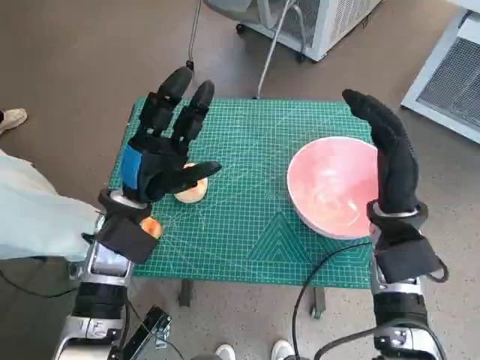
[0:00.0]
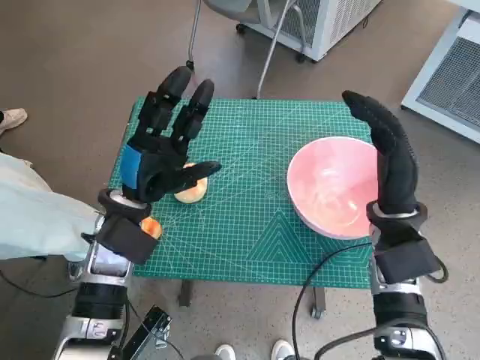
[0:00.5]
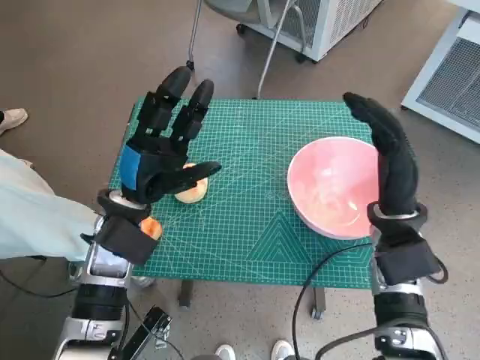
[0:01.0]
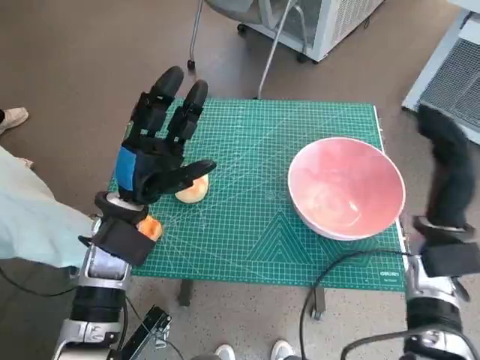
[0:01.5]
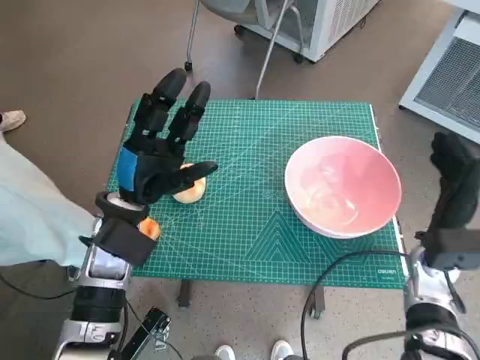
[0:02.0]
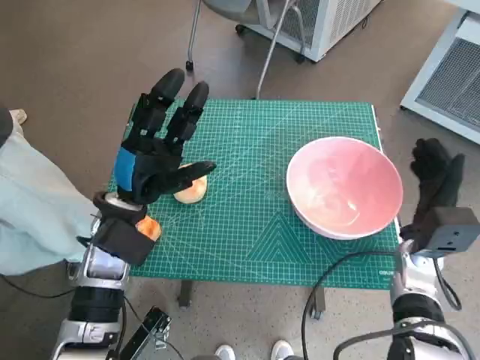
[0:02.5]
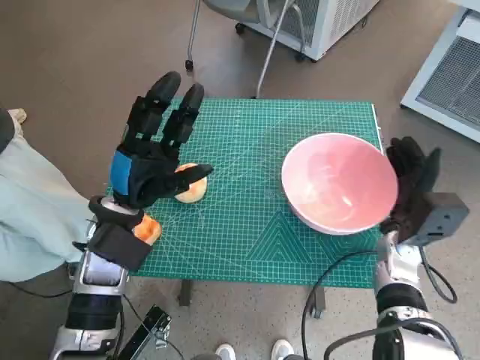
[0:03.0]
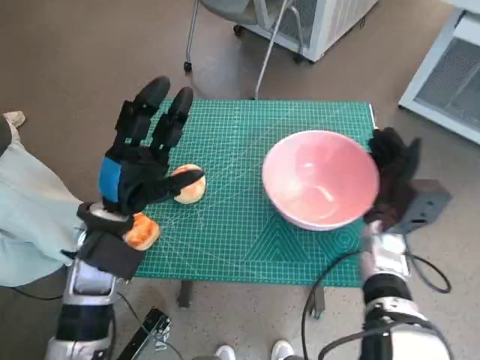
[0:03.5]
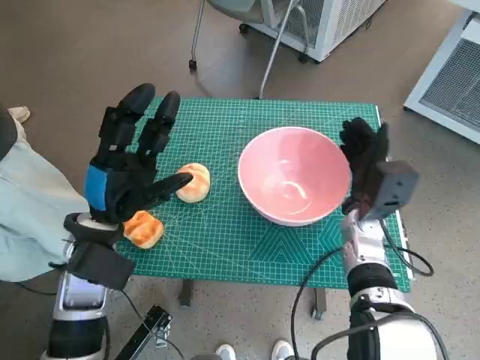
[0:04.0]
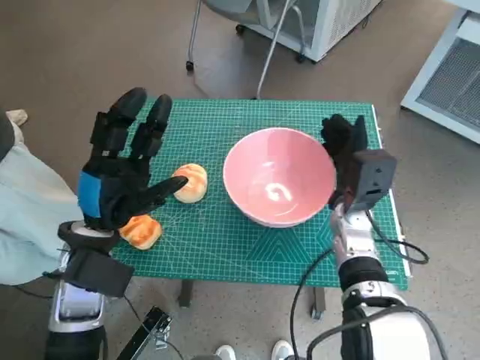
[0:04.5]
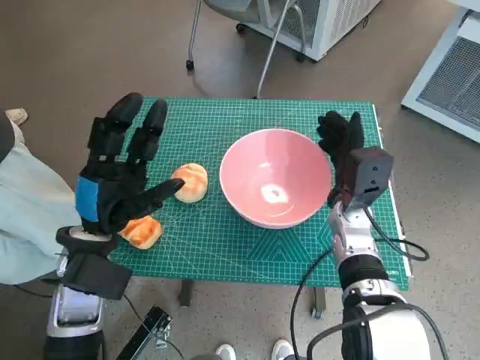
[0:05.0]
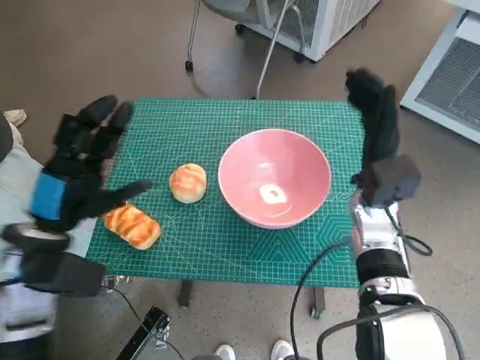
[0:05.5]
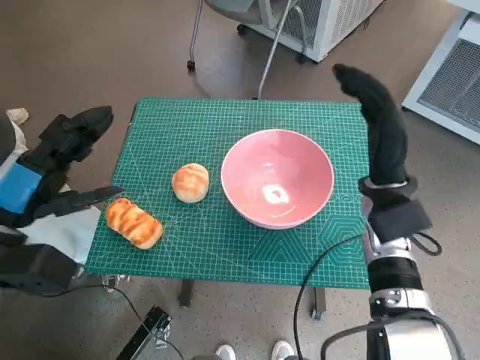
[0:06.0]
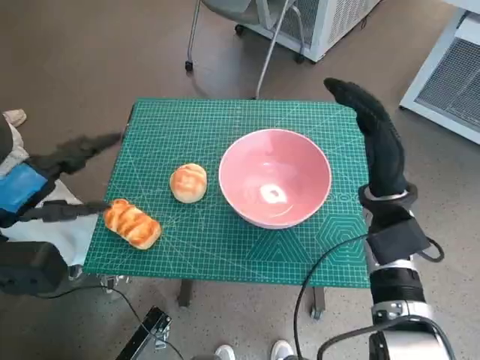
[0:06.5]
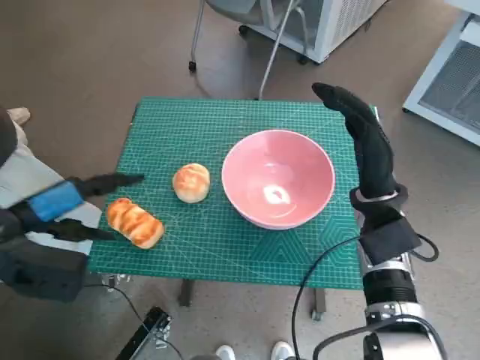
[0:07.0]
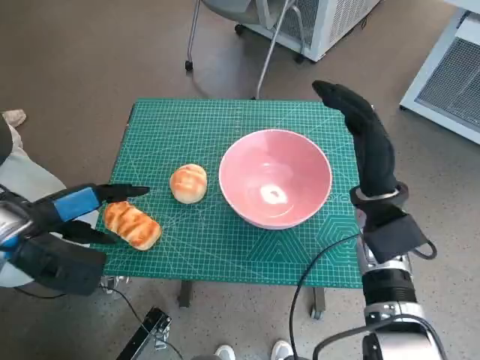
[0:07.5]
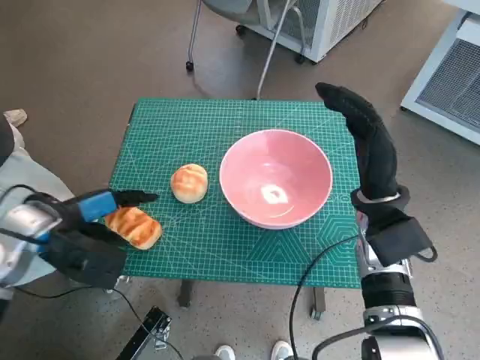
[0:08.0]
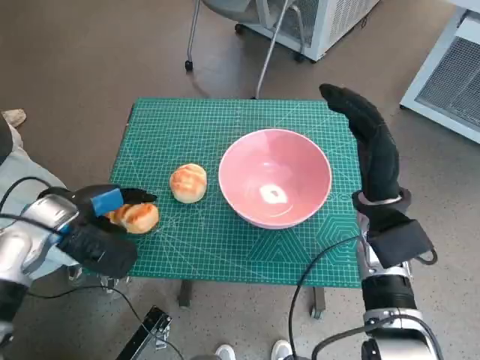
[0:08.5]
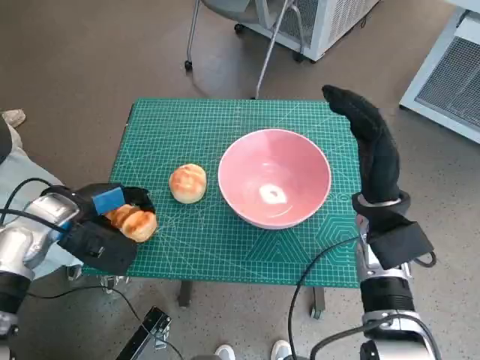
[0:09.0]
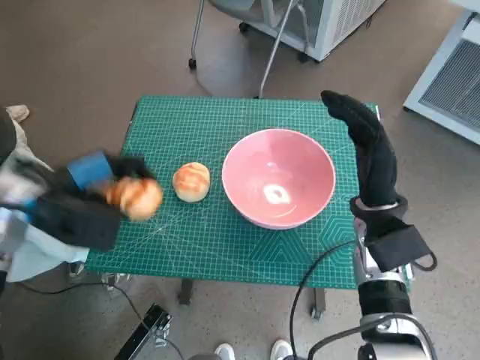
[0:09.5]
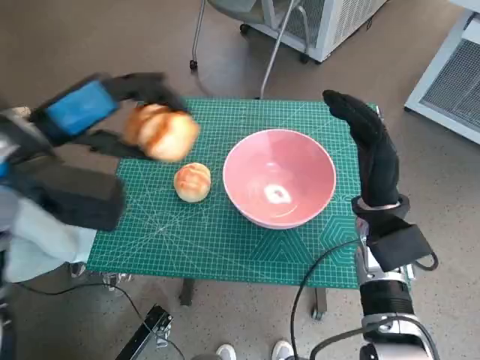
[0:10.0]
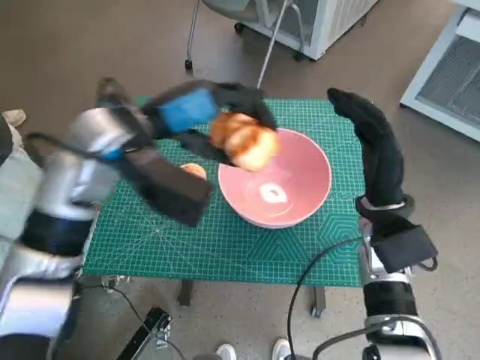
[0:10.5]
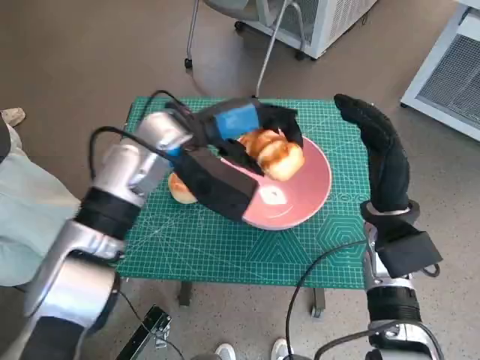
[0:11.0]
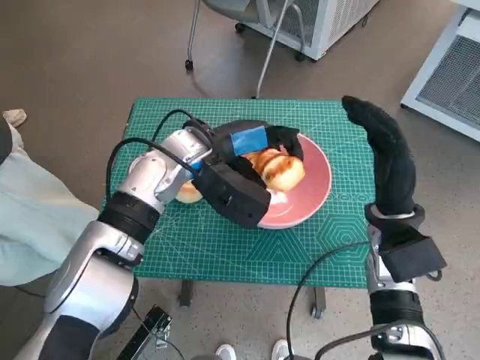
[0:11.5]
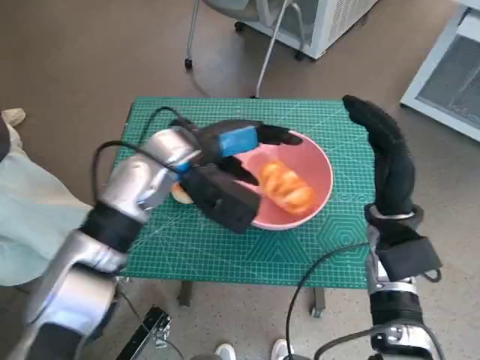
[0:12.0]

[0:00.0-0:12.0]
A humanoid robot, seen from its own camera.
Task of the whole recording: Push the bowl to the center of the table and put the bread into the bowl.
Step, 0:00.0 to 0:05.0: Move the pink bowl to the center of table with right hand.
Step, 0:05.5 to 0:08.5: Grasp the long bread with left hand.
0:02.0 to 0:04.0: The right hand goes about 10 cm to the left.
0:04.0 to 0:06.0: The right hand moves upward, approximately 5 cm; the left hand is displaced to the left by roughly 10 cm.
0:06.0 to 0:08.0: The left hand ends up roughly 5 cm from where it was.
0:08.0 to 0:10.0: The left hand goes approximately 10 cm upward.
0:10.0 to 0:12.0: The left hand shifts approximately 15 cm to the right, downward and forward.

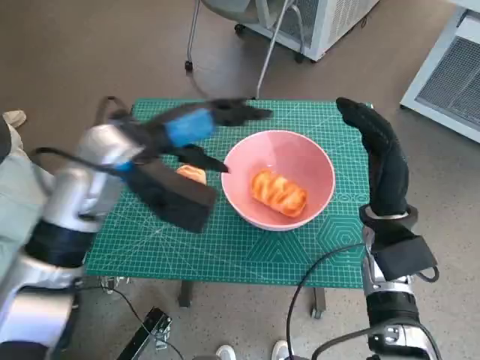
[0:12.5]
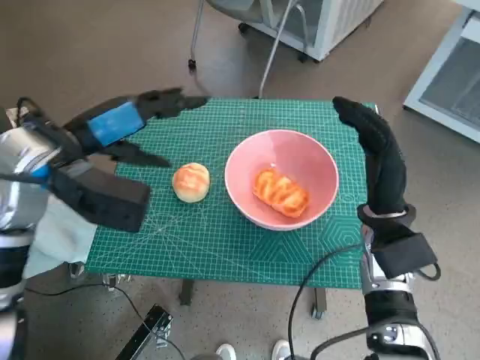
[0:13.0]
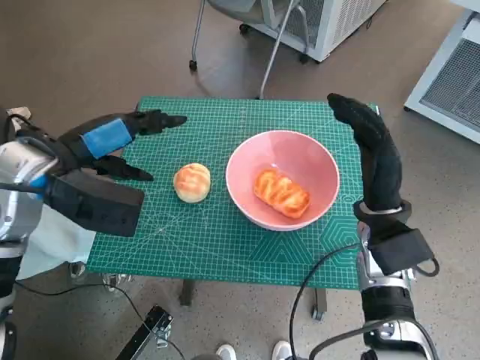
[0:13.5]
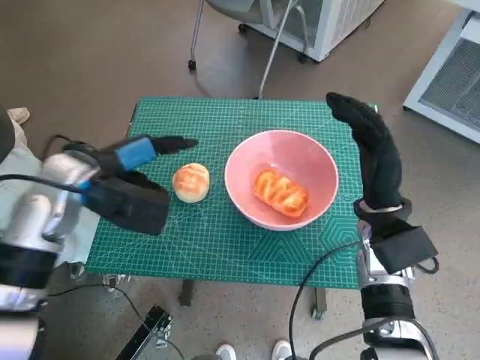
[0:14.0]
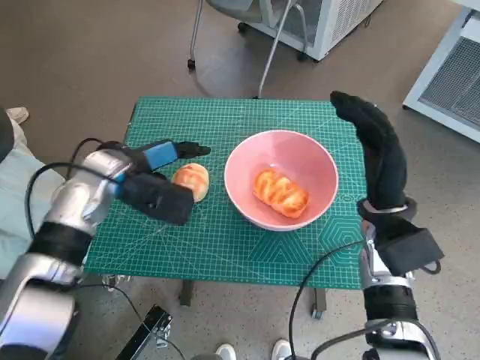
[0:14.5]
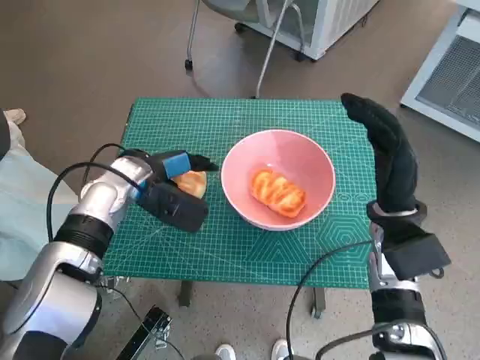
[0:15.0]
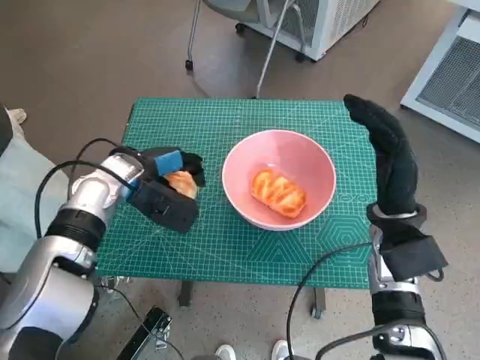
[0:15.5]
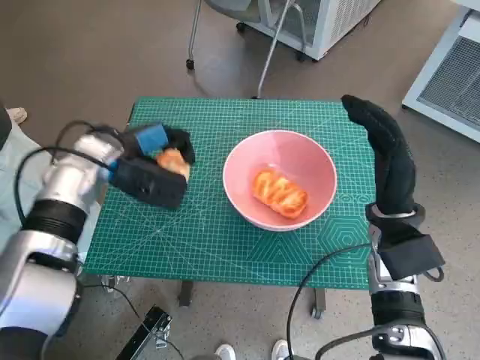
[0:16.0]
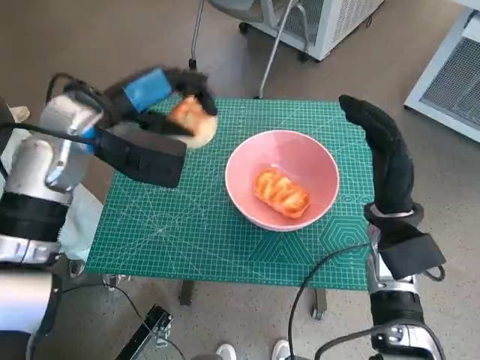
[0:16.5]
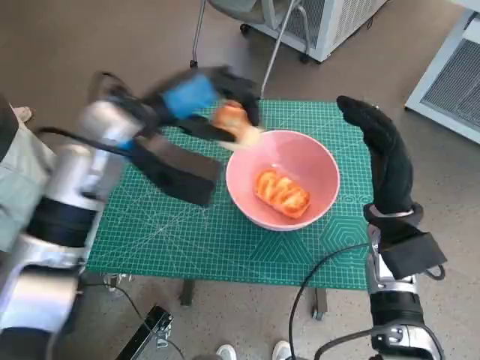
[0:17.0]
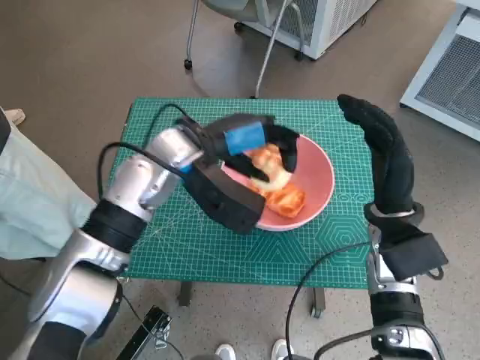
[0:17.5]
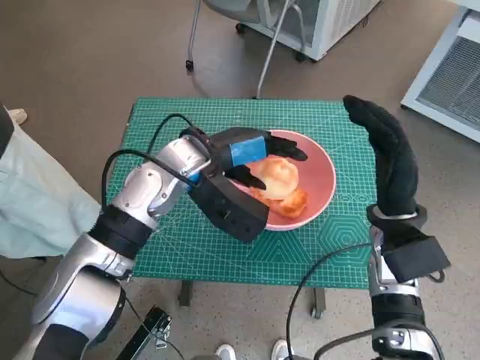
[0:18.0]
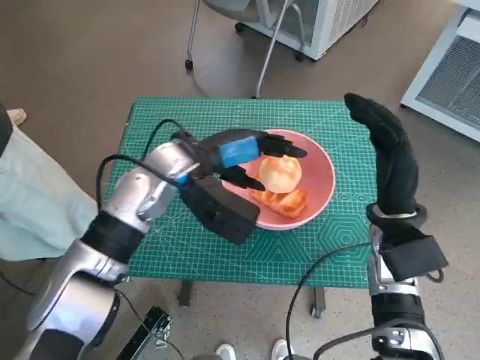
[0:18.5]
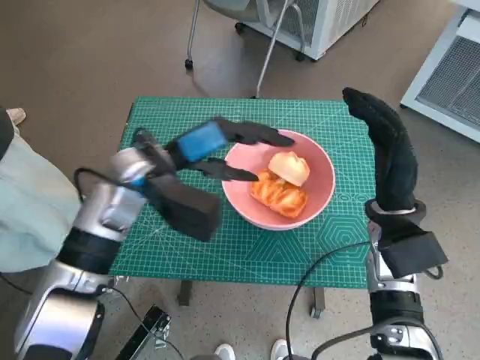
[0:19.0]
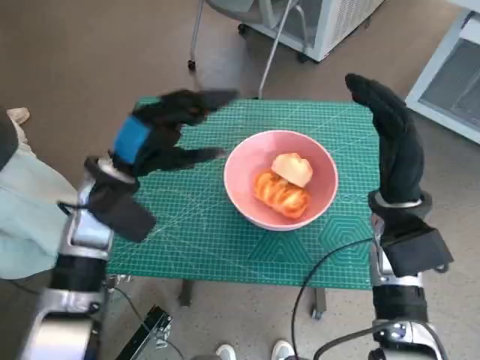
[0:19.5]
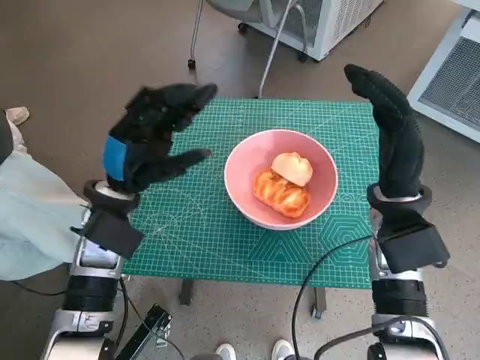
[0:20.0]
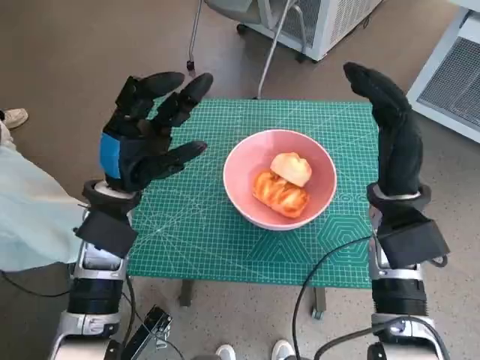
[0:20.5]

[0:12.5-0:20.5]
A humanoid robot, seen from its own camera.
Task of the whole recording: Push the bowl to the center of the table and put the bread into the bowl.
Step, 0:12.5 to 0:15.0: Grasp the round bread with left hand.
Step, 0:15.5 to 0:18.5: Place the round bread in pink bowl with left hand.
0:12.5 to 0:14.5: The left hand moves downward and to the left, roughly 10 cm.
0:14.5 to 0:16.5: The left hand travels upward by approximately 10 cm.
0:16.5 to 0:18.5: The left hand shifts roughly 10 cm to the right and downward.
0:18.5 to 0:20.5: The left hand travels to the left by about 10 cm.
